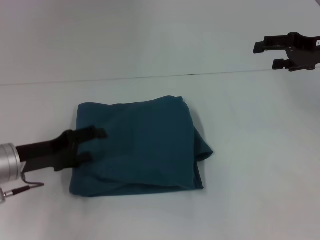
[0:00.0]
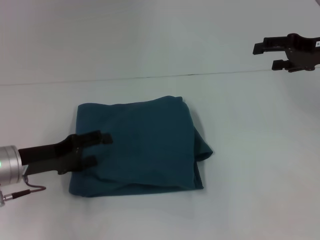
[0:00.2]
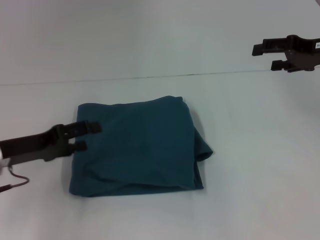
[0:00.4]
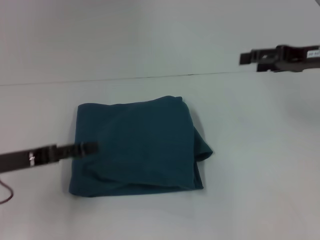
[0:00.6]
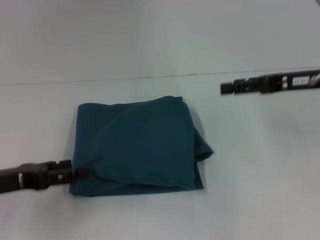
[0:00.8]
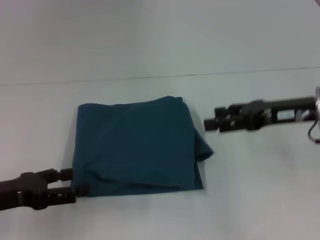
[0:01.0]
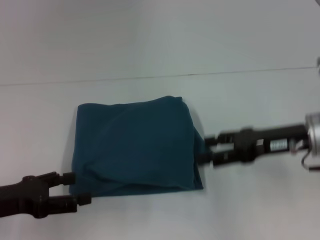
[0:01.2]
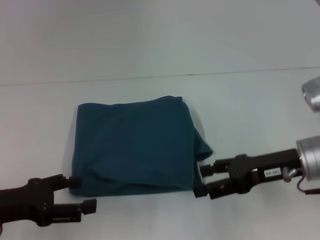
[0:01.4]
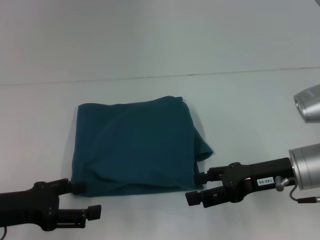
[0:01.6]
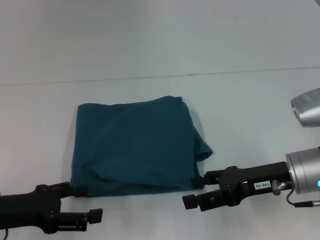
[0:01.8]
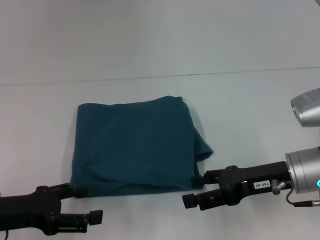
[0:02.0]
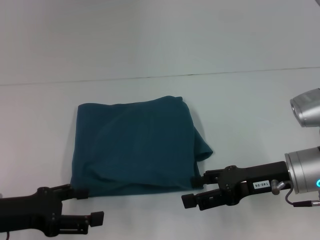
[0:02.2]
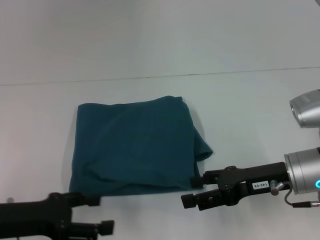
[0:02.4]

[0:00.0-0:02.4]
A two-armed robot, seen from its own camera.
0.0 to 1.2 s: The left gripper heads backward, covering about 5 cm. The right gripper is displaced backward, to the left and downward by approximately 15 cm.
1.2 to 2.4 s: The right gripper moves roughly 5 cm.

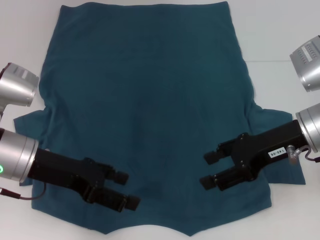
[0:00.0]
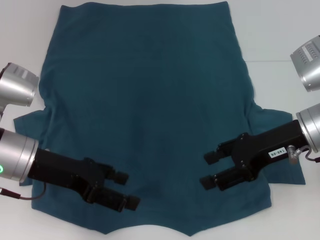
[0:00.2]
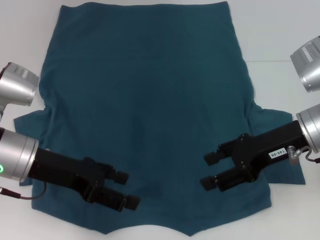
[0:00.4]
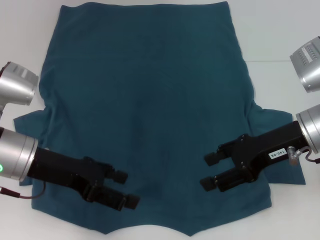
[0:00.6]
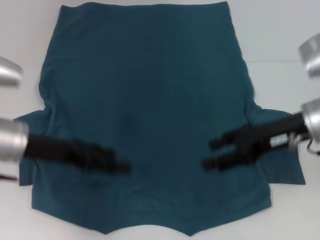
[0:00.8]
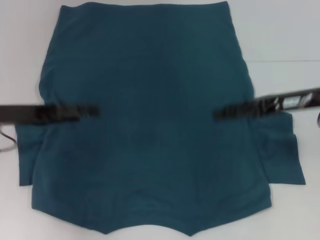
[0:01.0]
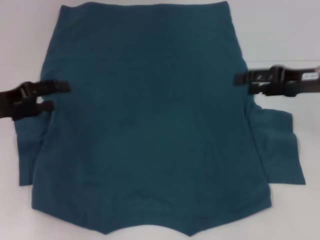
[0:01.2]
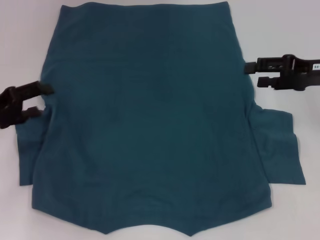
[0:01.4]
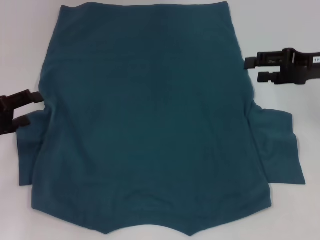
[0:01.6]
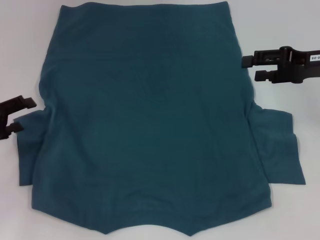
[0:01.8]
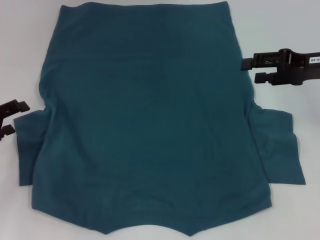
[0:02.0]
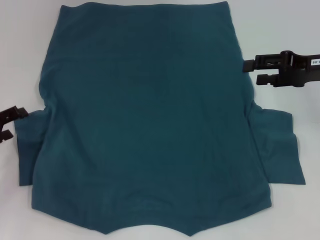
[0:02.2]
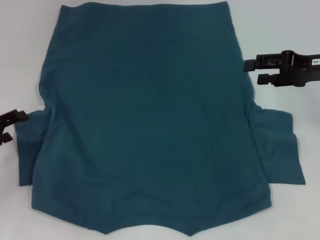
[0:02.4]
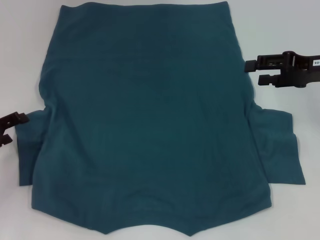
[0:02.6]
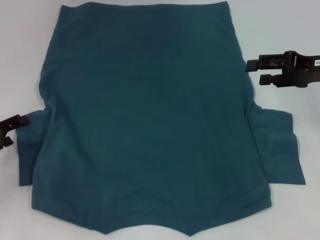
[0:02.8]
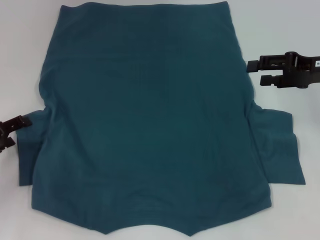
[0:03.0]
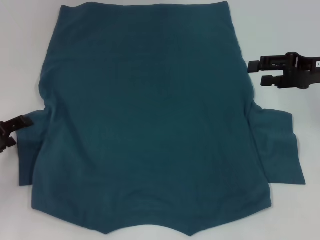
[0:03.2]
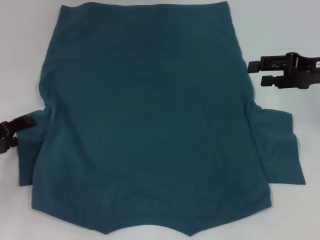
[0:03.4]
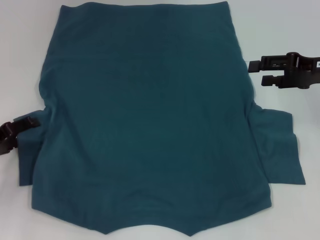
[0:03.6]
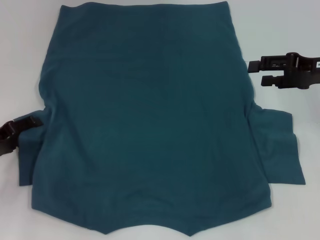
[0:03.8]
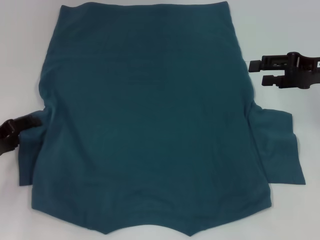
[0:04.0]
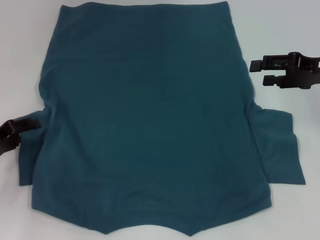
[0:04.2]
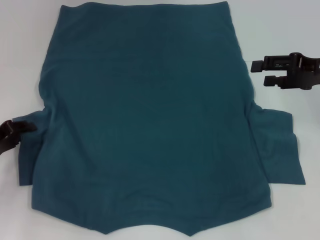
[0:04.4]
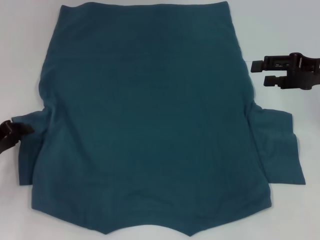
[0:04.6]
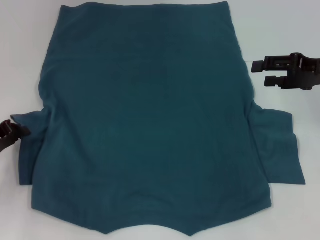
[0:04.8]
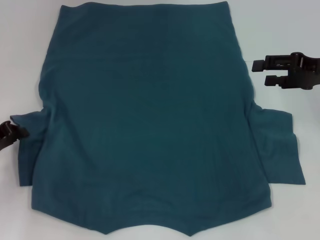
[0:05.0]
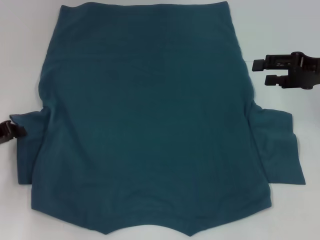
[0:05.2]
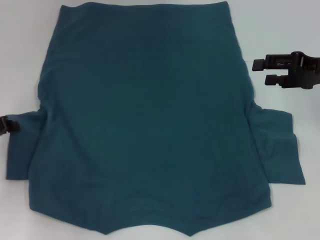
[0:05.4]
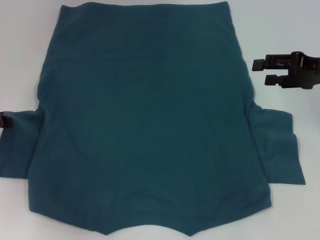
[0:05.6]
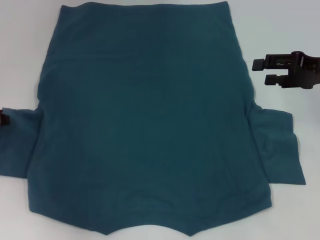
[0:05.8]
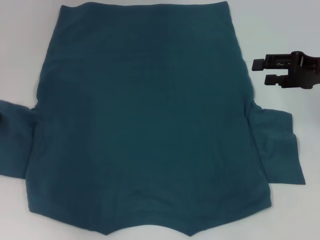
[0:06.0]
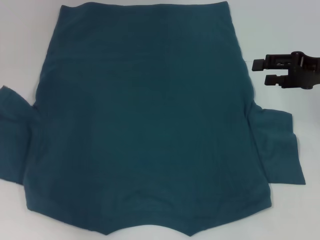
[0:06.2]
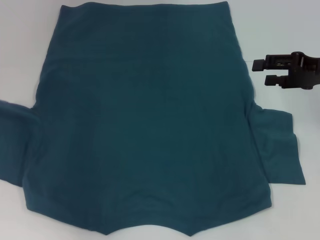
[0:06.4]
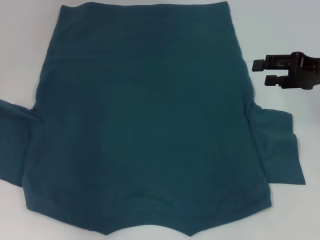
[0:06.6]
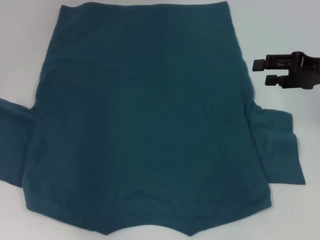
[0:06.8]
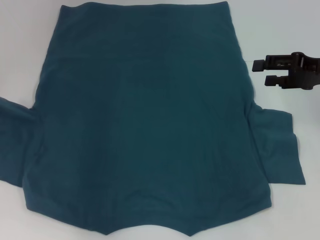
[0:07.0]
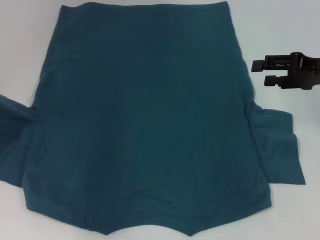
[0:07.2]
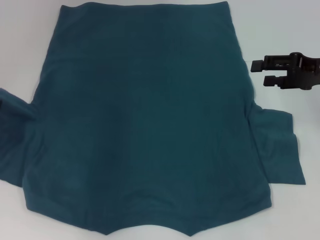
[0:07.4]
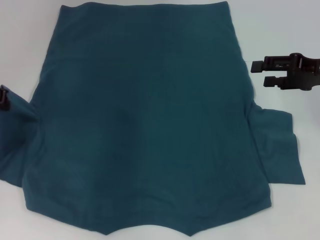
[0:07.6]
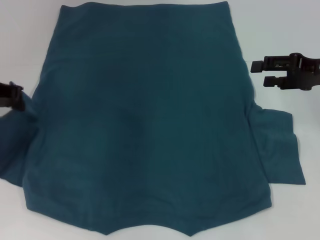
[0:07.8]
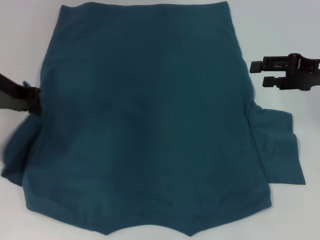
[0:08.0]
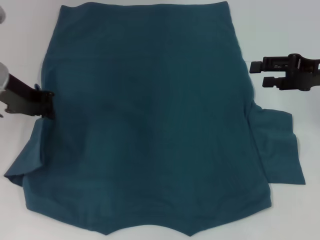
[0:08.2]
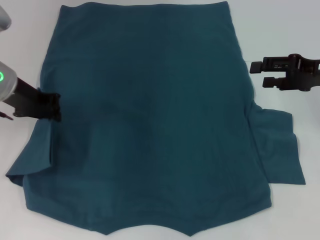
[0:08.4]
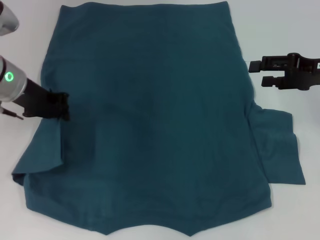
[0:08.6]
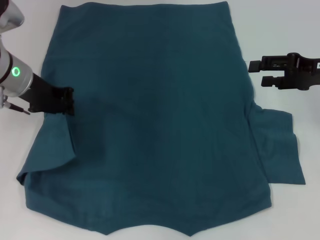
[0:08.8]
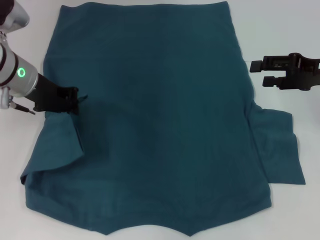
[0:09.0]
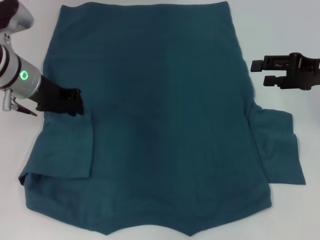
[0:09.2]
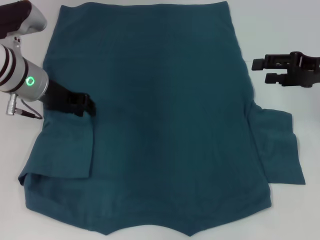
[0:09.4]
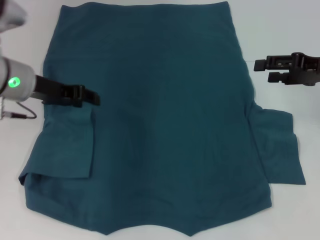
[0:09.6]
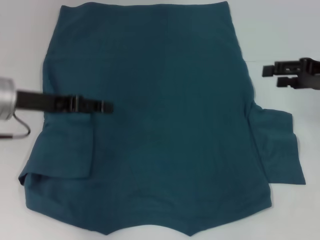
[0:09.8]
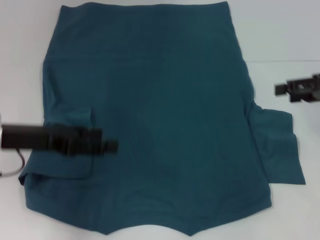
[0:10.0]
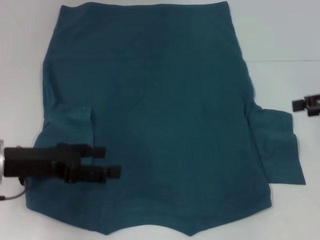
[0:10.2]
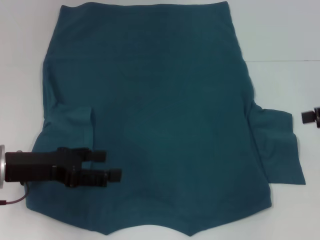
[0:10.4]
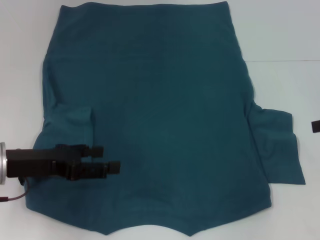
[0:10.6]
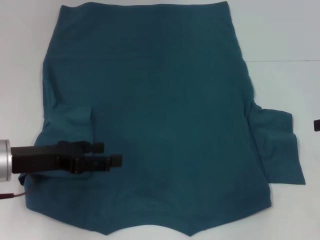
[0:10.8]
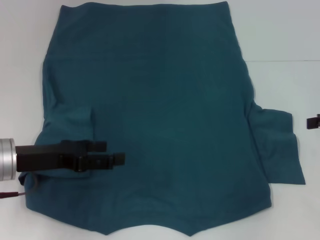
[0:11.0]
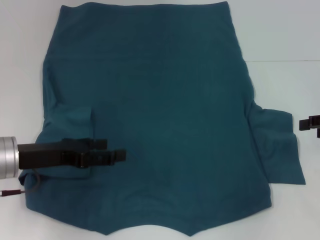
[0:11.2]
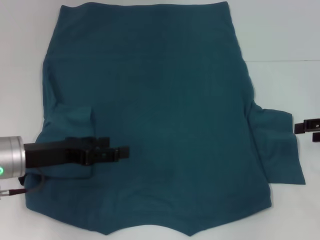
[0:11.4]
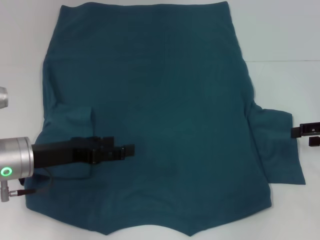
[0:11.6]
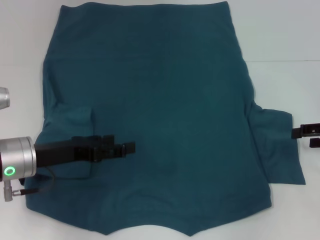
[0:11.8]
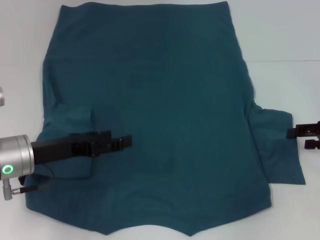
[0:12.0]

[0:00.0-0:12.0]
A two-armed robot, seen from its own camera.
Step, 0.0 to 9.4 s: Fold the bottom left sleeve with your left hand.
0.0 to 1.6 s: The right gripper travels to the right and forward by roughly 10 cm, while the left gripper moves to the left, approximately 10 cm.
1.6 to 3.0 s: The left gripper shifts by roughly 5 cm.
3.0 to 4.4 s: The grippers move only a little.
4.4 to 6.0 s: The left gripper travels upward and forward by approximately 10 cm, and closes.
6.0 to 7.6 s: The left gripper is displaced upward by about 5 cm.
7.6 to 9.0 s: The left gripper shifts about 10 cm to the right.
9.0 to 10.4 s: The left gripper moves backward, about 15 cm, and opens, while the right gripper shifts roughly 5 cm to the right.
10.4 to 12.0 s: The right gripper shifts roughly 5 cm downward.

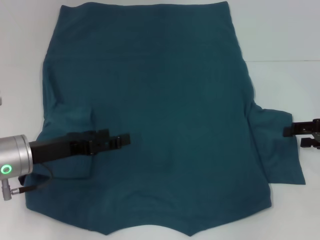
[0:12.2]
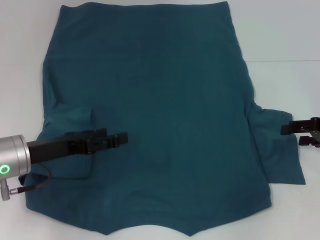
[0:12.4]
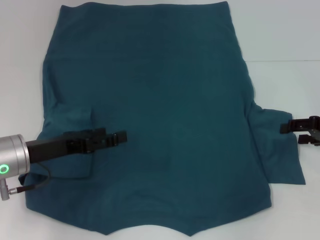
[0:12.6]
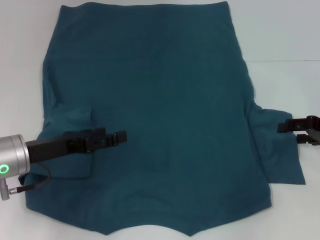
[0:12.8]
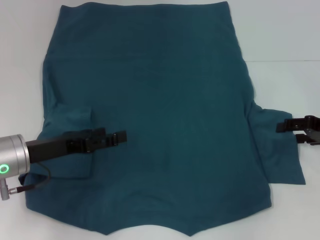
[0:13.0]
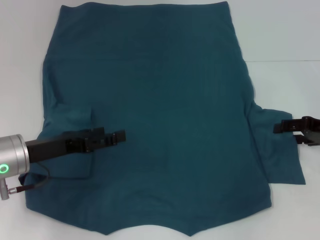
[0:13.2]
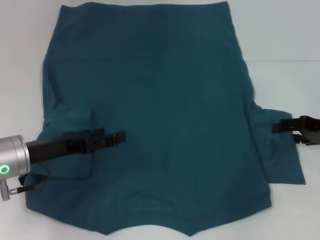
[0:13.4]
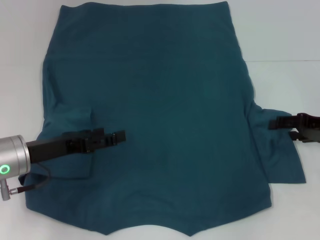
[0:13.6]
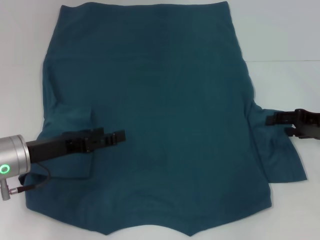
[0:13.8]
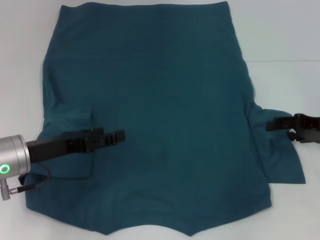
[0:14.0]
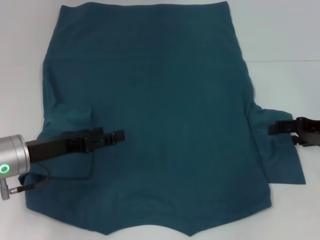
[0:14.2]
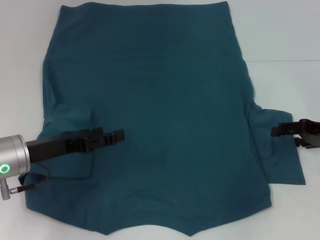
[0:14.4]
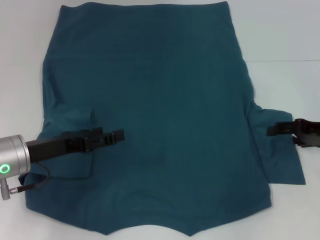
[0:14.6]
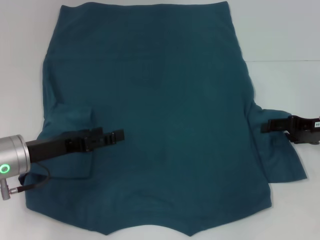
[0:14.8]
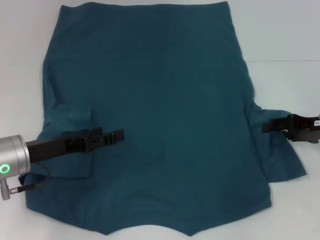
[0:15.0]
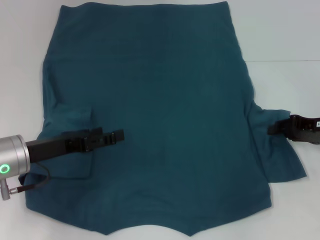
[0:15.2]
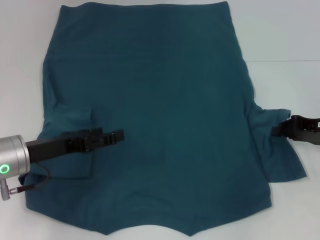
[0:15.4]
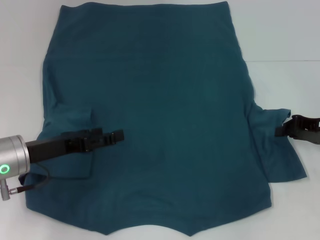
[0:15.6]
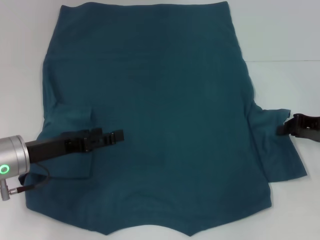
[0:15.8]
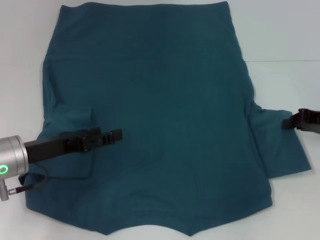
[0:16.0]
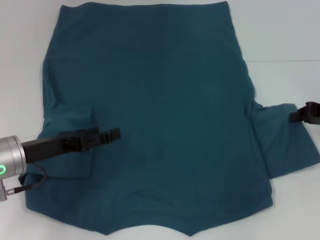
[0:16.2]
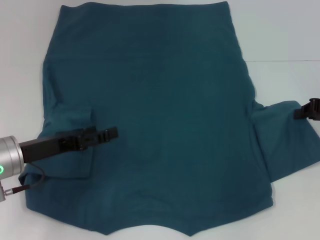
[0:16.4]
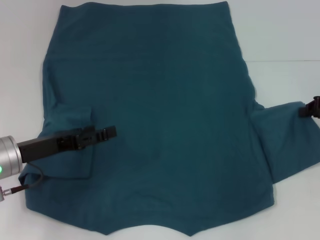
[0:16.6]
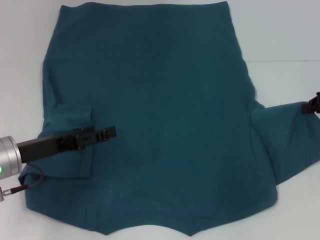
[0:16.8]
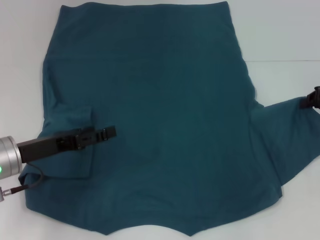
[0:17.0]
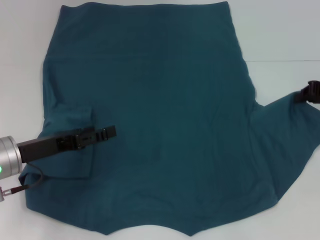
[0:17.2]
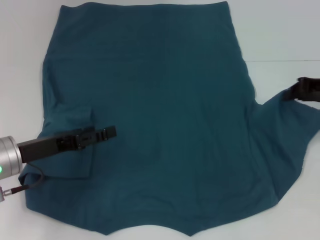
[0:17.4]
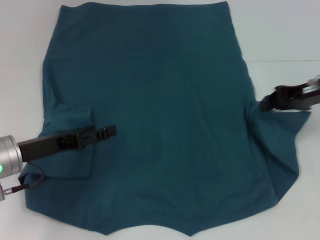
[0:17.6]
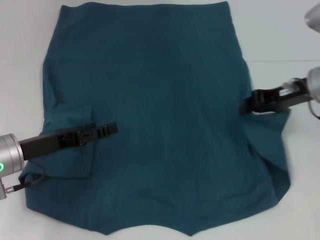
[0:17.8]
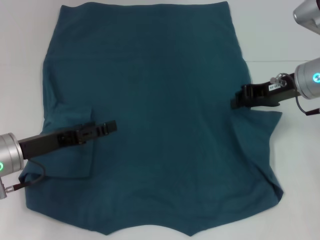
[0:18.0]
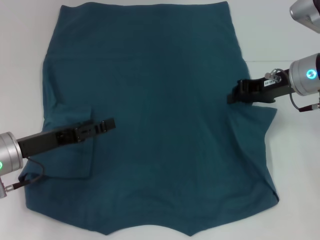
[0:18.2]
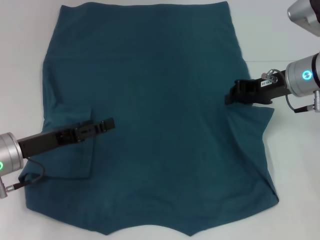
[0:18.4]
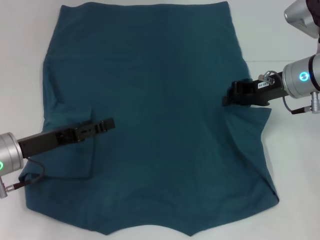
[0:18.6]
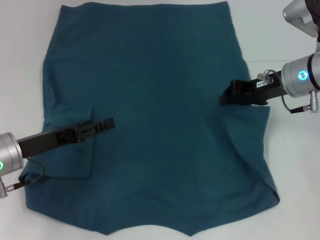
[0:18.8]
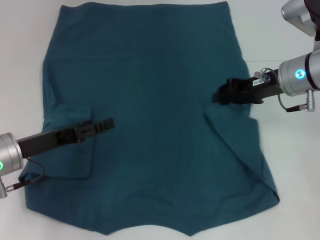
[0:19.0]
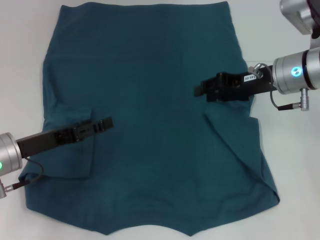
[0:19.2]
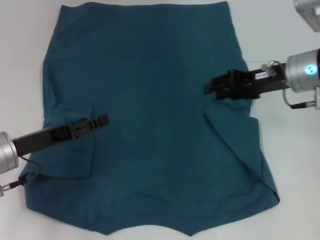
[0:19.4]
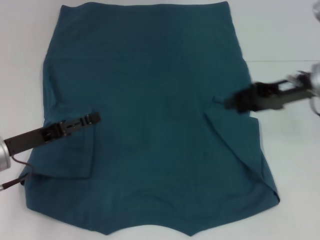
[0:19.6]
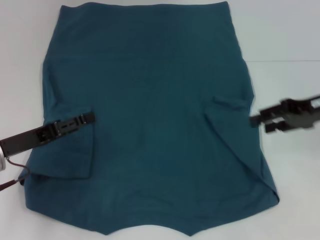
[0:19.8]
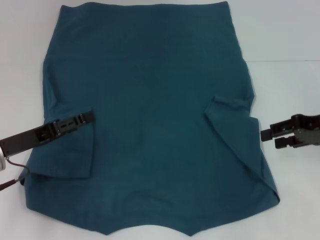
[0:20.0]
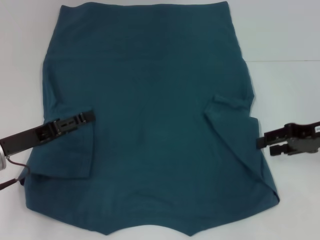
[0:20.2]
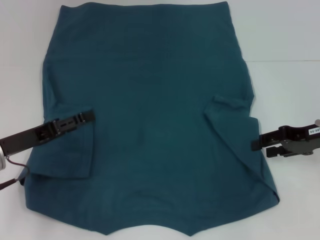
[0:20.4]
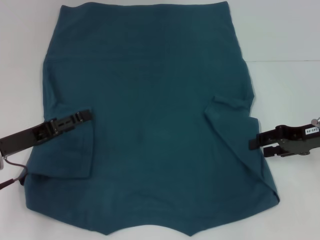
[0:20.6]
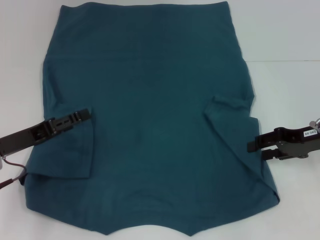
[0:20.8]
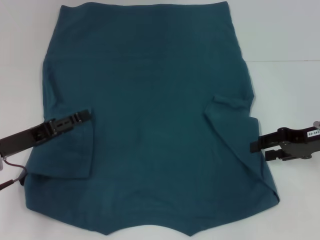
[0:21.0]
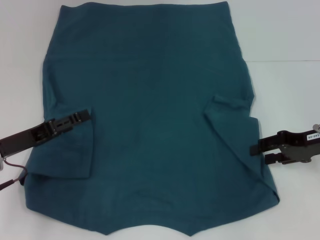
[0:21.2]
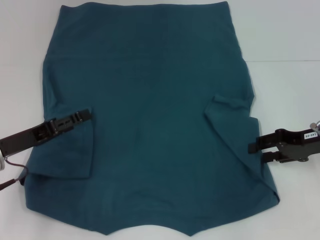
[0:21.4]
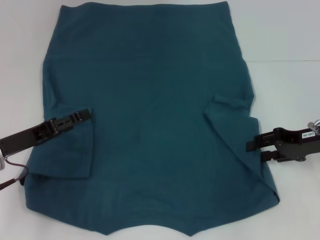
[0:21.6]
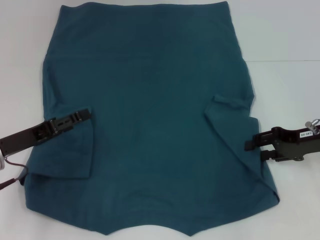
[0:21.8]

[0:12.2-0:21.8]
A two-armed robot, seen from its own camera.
12.2 to 13.8 s: The grippers move only a little.
13.8 to 15.4 s: Both grippers stay put.
15.4 to 17.0 s: The right gripper moves roughly 5 cm, and closes its fingers.
17.0 to 18.6 s: The right gripper travels to the left by some 15 cm.
18.6 to 20.2 s: The right gripper is displaced to the right and backward by some 10 cm, and opens its fingers.
20.2 to 21.8 s: The grippers move only a little.
